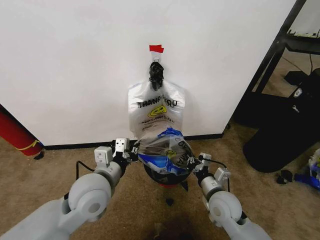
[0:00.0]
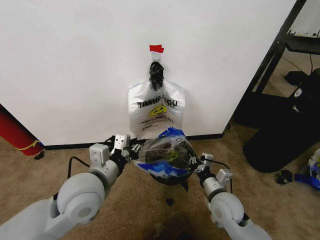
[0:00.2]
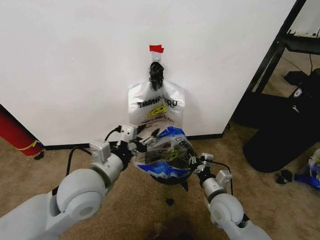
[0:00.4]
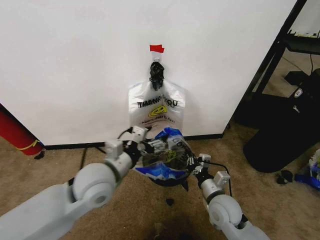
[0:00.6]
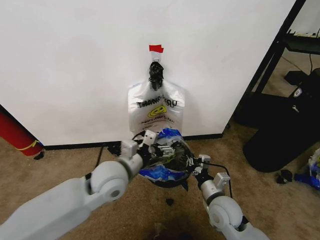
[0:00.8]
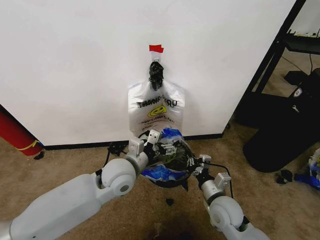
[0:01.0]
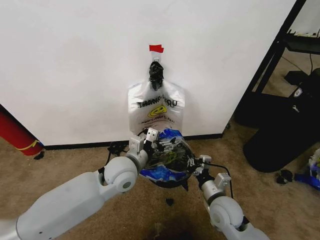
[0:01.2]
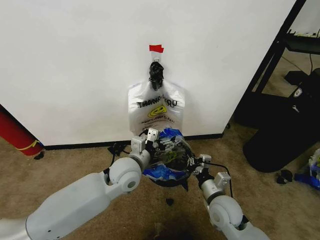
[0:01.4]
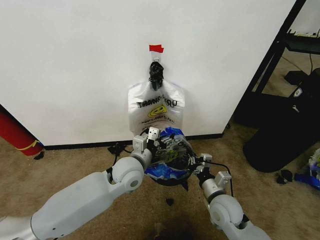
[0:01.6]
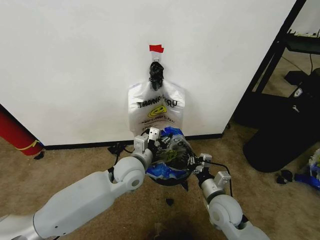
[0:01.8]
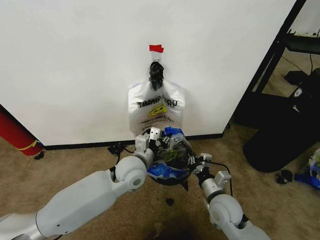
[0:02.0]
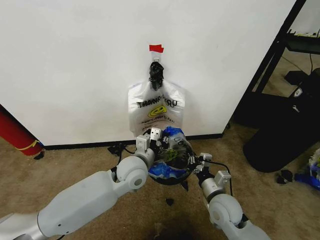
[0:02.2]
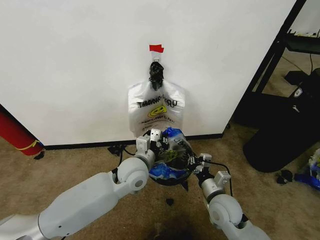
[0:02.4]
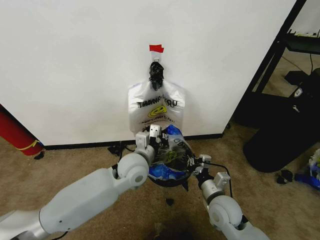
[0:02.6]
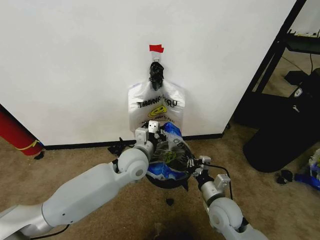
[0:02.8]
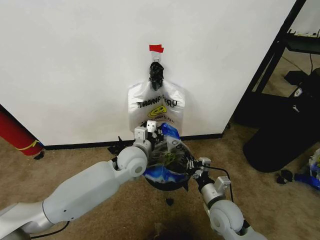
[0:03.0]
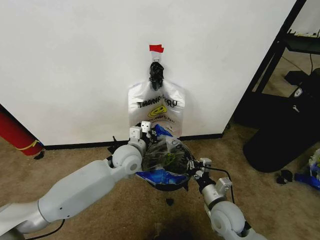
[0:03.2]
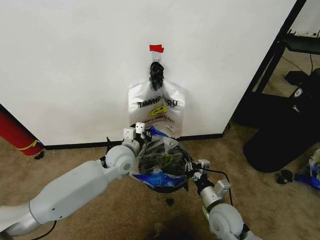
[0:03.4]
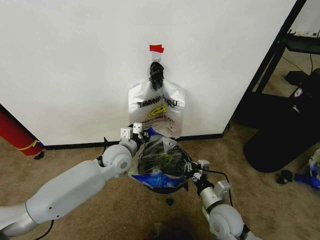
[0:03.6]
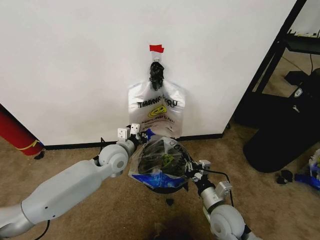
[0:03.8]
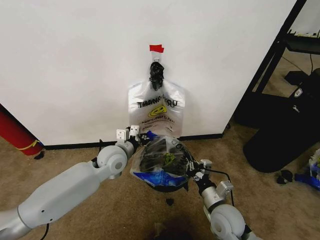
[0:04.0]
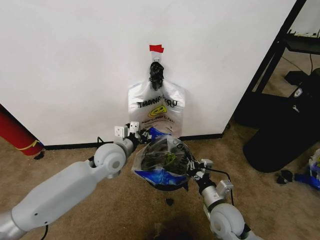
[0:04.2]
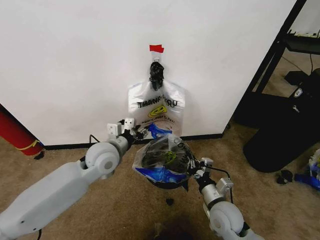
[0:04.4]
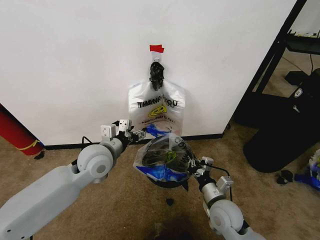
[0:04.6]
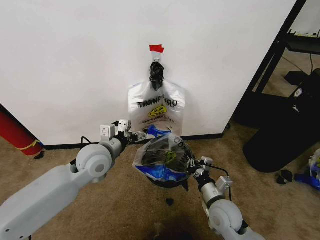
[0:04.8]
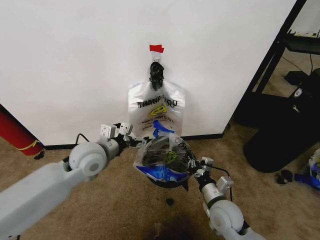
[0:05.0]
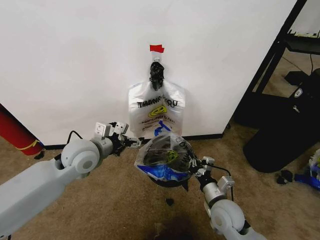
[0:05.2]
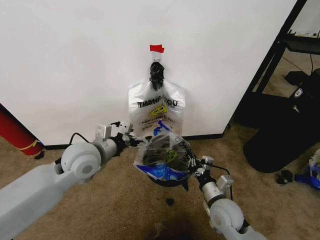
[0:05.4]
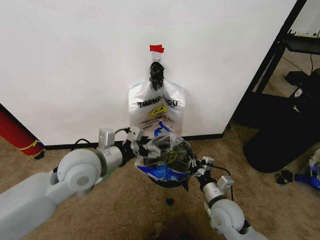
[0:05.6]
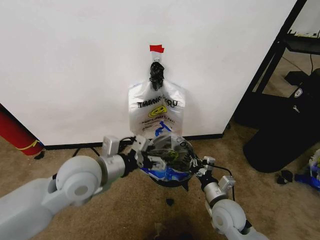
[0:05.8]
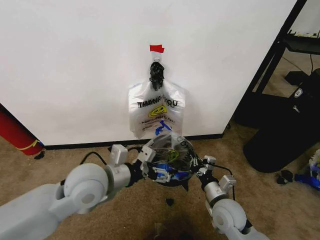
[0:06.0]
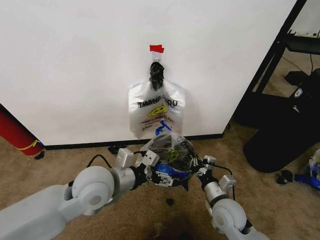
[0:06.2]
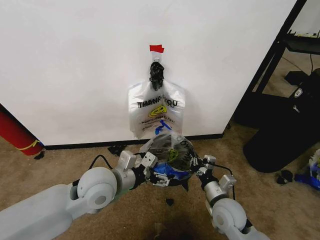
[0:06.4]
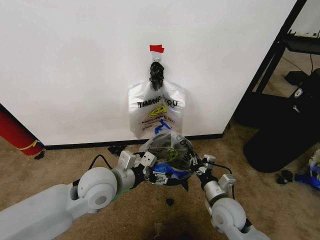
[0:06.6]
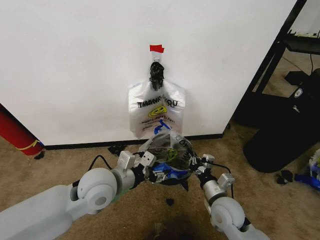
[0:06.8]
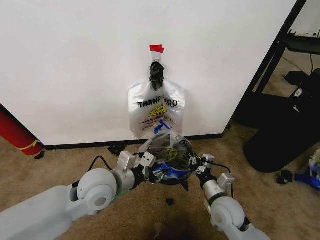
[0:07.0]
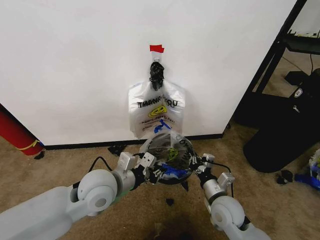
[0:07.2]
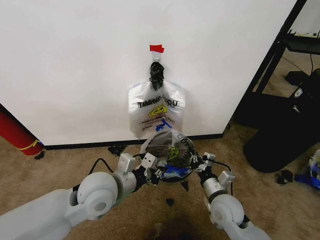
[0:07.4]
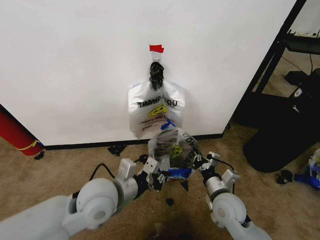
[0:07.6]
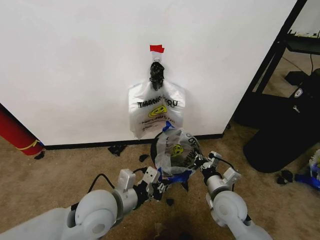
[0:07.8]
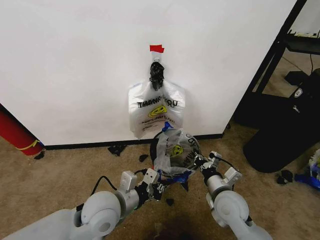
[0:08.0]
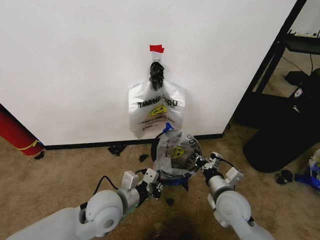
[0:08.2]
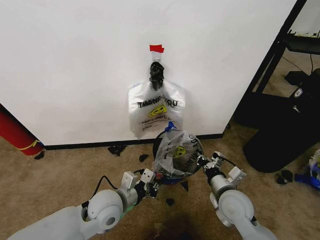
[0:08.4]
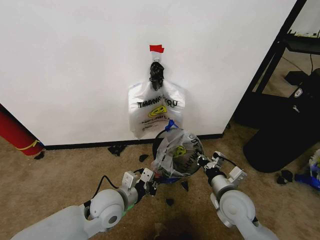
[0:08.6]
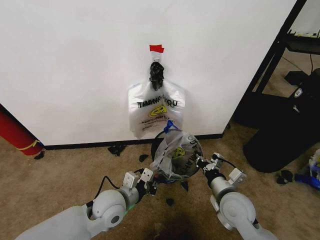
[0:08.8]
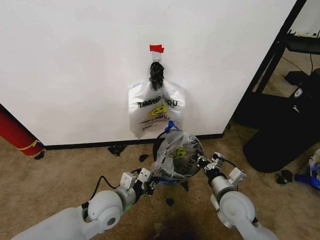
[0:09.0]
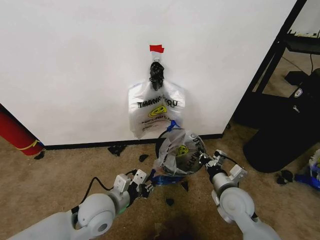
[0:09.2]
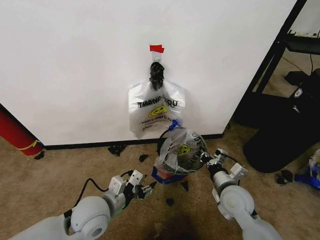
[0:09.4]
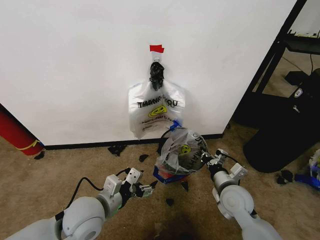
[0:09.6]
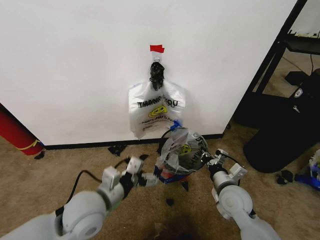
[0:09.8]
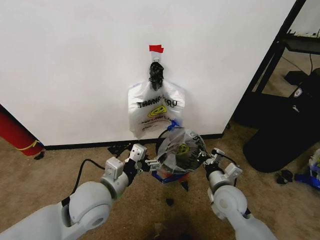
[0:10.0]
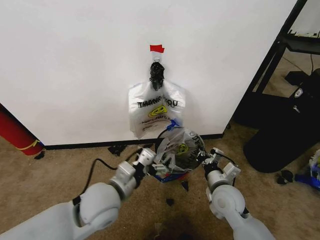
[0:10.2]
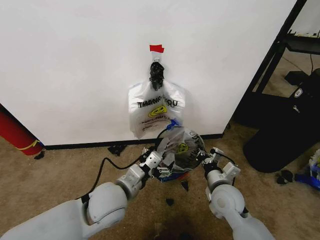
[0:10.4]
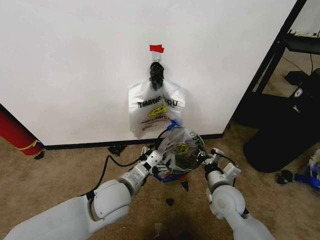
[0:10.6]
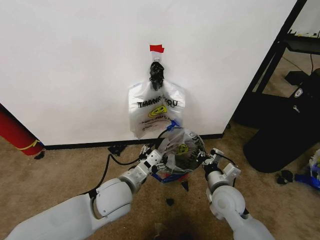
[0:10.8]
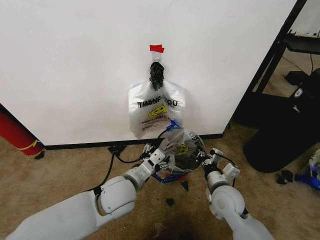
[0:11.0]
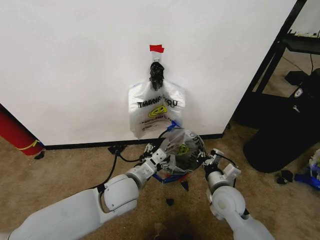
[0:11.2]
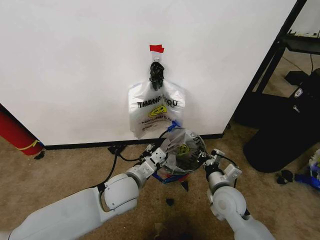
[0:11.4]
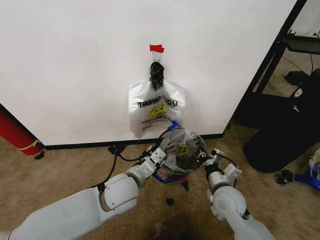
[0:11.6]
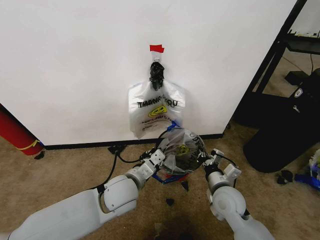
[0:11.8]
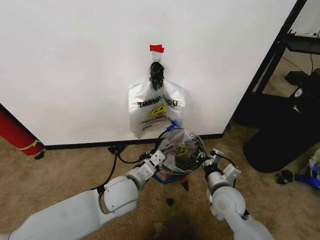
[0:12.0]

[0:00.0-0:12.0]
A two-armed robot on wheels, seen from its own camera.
Task of the whole recording: Pick up the garbage bag from the wall and place it over the trash bin.
0:00.0 to 0:01.6: The left gripper is displaced forward, to the right and downward by about 10 cm, and opens.
0:01.6 to 0:03.0: The left gripper closes its fingers.
0:03.0 to 0:04.4: The left gripper moves to the left, roughly 10 cm, and opens up.
0:04.4 to 0:06.0: The left gripper is displaced backward by roughly 10 cm, and opens.
0:06.0 to 0:07.6: The left gripper closes.
0:07.6 to 0:09.0: The left gripper travels downward by about 10 cm.
0:09.0 to 0:10.4: The left gripper travels upward by about 5 cm, and opens up.
0:10.4 to 0:12.0: The left gripper closes its fingers.

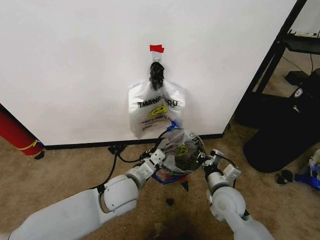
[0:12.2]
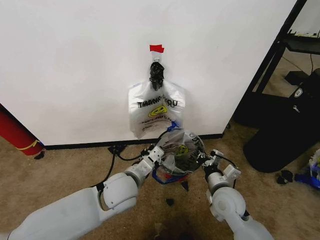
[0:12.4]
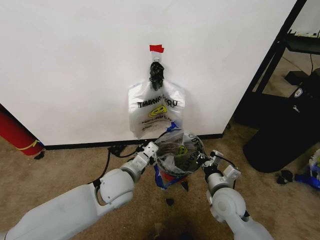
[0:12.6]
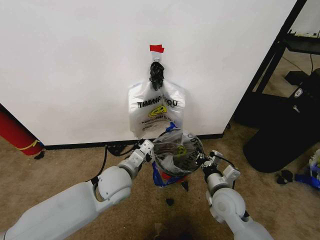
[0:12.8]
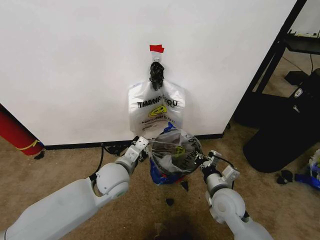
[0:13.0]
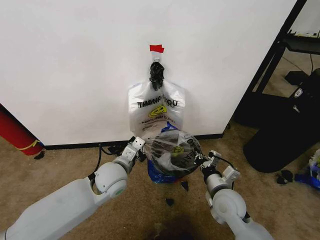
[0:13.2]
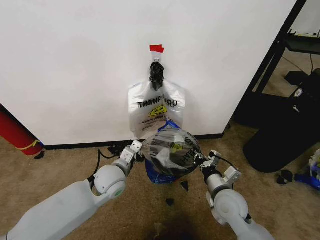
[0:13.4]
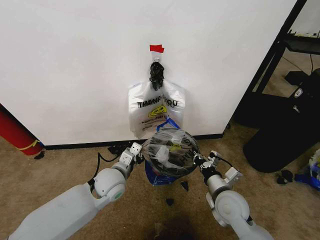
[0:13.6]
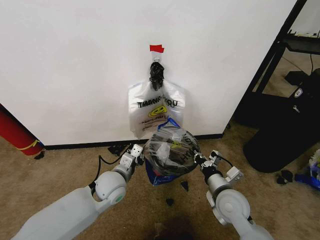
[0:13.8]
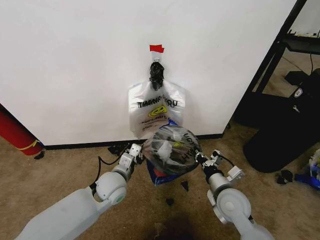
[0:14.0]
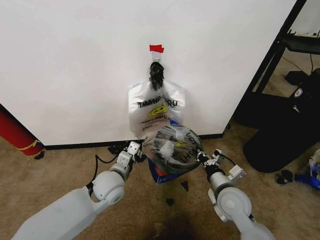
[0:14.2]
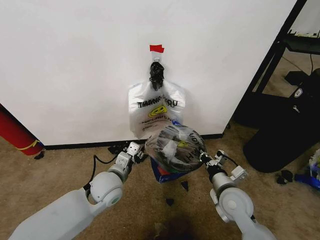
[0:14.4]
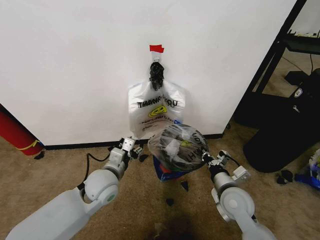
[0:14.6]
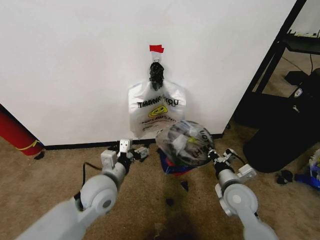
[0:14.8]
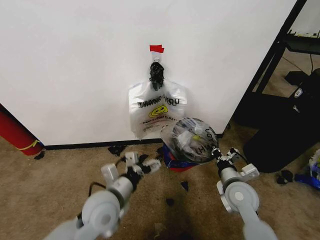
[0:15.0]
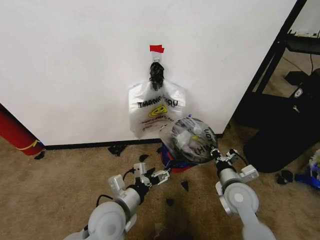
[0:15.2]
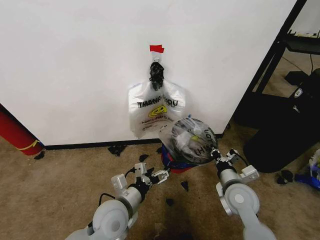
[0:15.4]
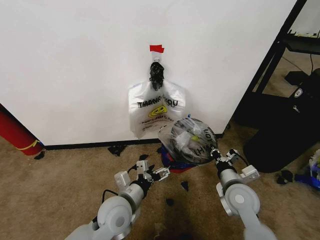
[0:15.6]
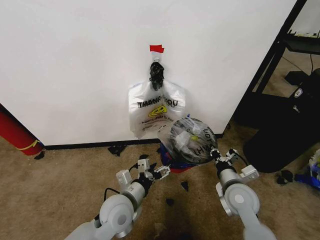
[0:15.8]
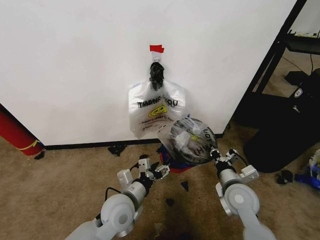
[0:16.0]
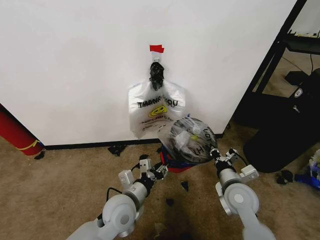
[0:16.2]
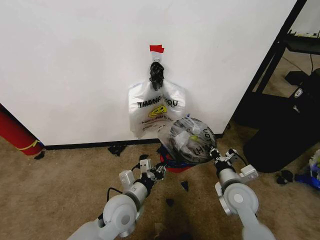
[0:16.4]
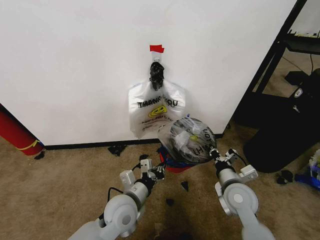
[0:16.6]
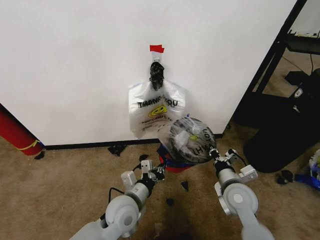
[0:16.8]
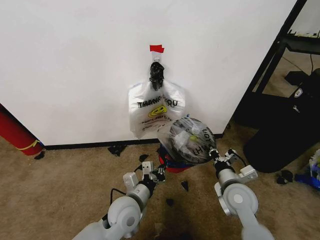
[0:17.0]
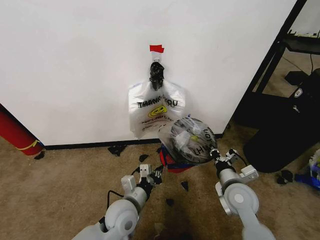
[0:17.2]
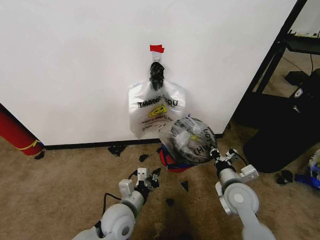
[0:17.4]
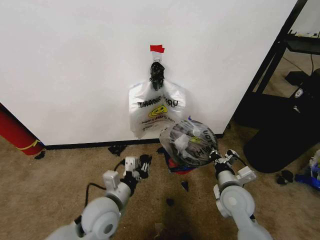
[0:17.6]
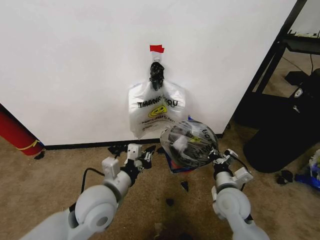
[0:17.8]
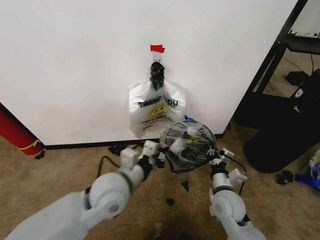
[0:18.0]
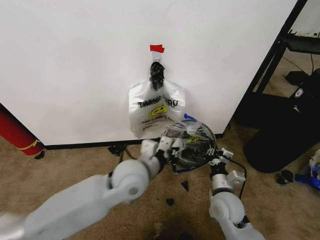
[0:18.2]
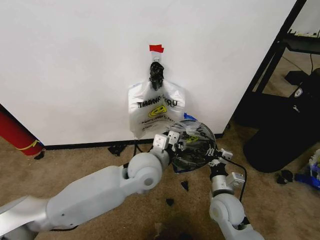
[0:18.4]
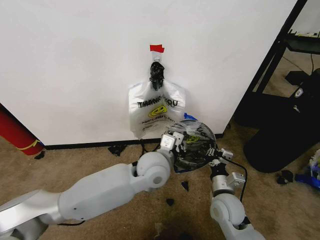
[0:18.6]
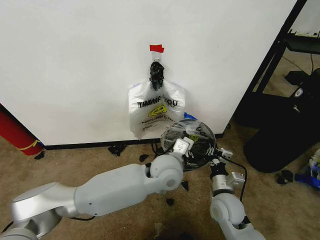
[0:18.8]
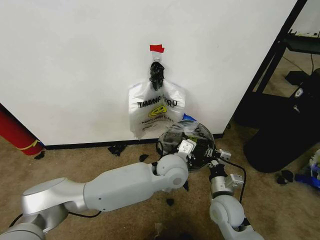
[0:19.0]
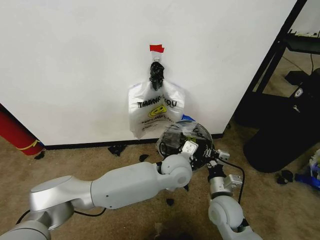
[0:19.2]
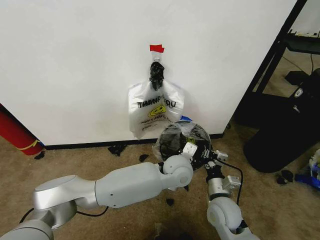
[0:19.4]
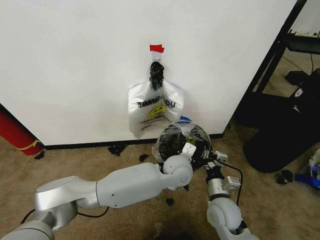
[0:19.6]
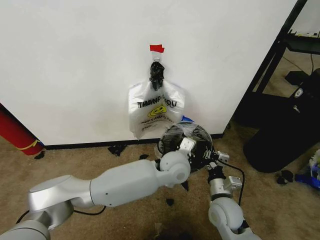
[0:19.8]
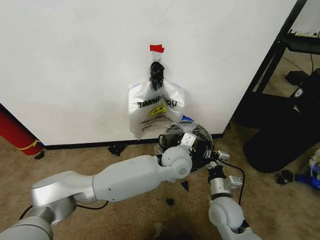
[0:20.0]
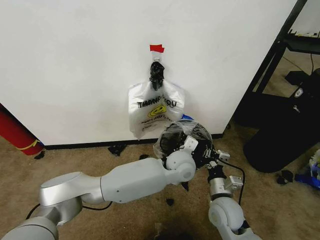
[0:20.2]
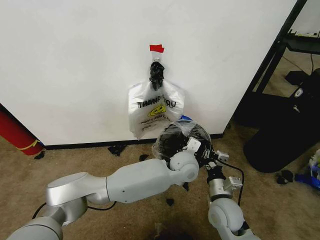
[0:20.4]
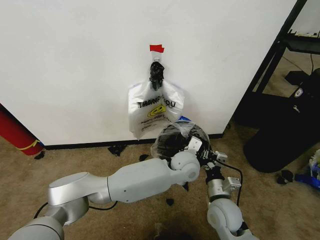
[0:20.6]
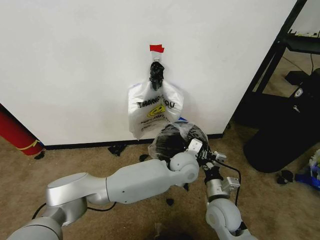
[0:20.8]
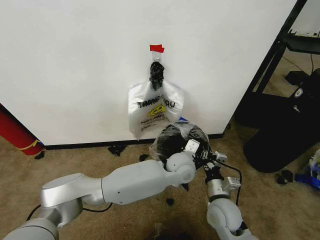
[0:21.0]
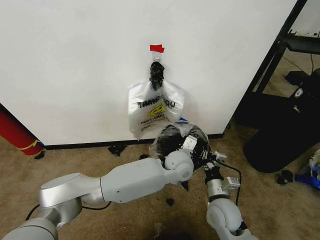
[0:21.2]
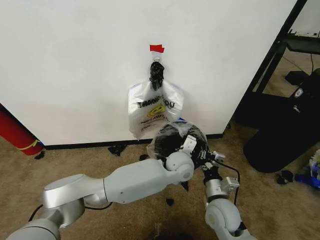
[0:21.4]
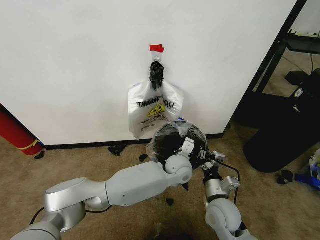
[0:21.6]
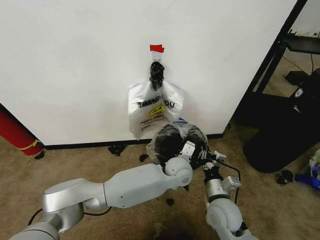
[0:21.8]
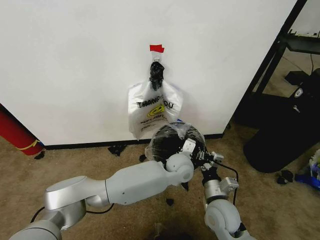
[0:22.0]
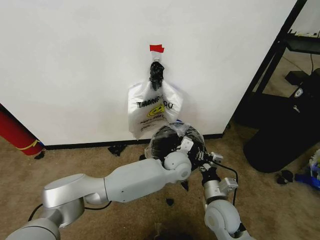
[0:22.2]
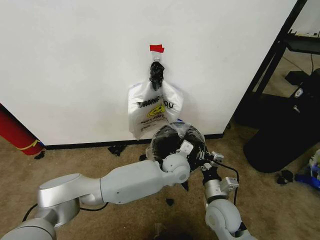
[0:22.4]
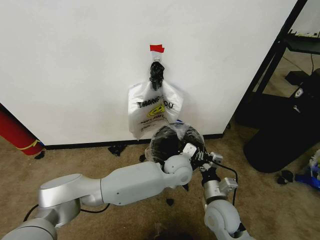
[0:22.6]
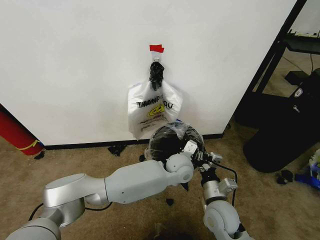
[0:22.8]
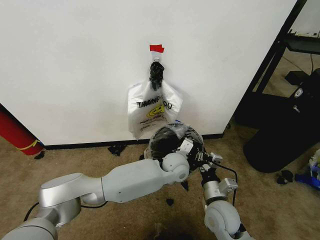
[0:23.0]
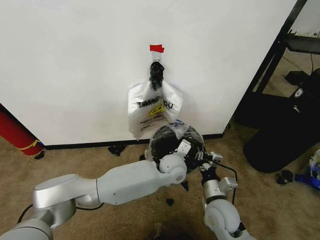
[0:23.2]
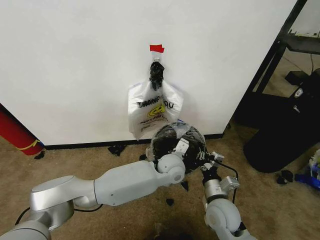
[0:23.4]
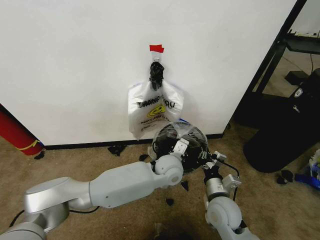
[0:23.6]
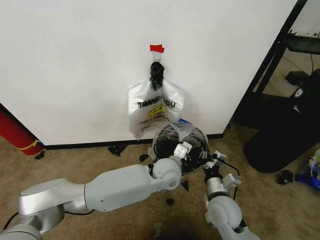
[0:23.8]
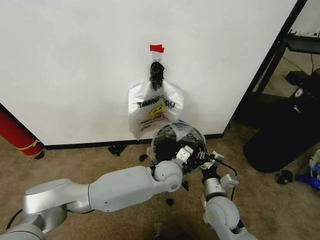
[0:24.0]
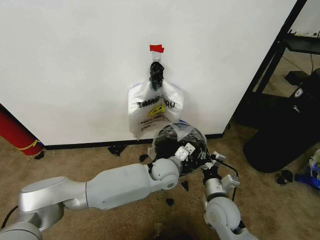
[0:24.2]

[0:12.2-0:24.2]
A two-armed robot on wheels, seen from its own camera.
Task of the whole recording: Pick up the garbage bag from the wall and place it over the trash bin.
0:12.2 to 0:13.8: The left gripper moves downward, approximately 5 cm.
0:13.8 to 0:15.2: The left gripper shifts roughly 10 cm backward, and opens up.
0:15.2 to 0:16.6: The left gripper shifts by some 5 cm, and closes.
0:16.6 to 0:18.2: The right gripper changes place by roughly 5 cm; the left gripper shifts approximately 10 cm upward and forward.
0:18.2 to 0:19.8: The left gripper moves to the right and forward, some 15 cm.
0:19.8 to 0:21.2: The grippers make only small movements.
0:21.2 to 0:24.2: The grippers stay close to where they were, moving slightly.
